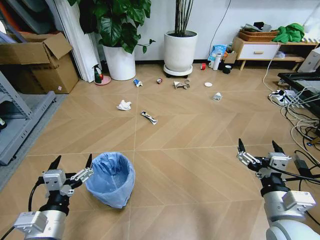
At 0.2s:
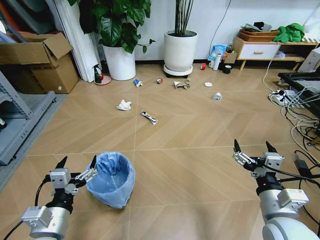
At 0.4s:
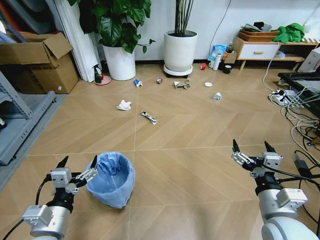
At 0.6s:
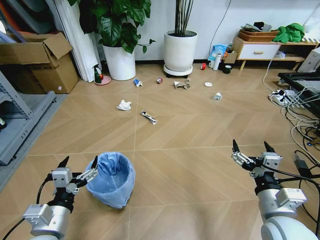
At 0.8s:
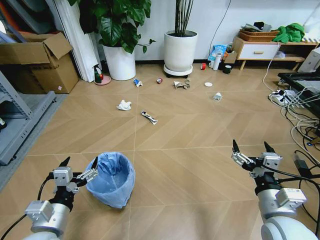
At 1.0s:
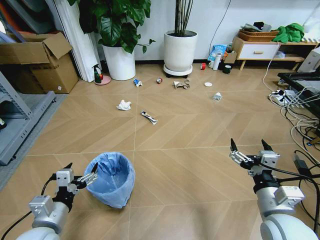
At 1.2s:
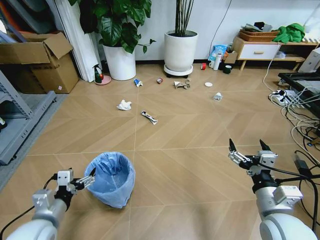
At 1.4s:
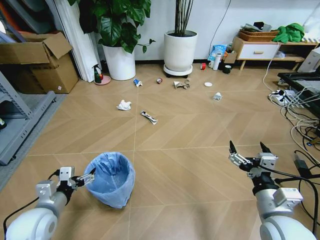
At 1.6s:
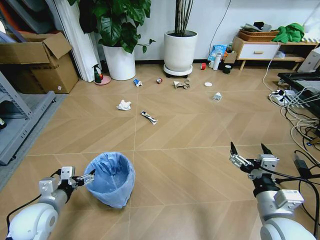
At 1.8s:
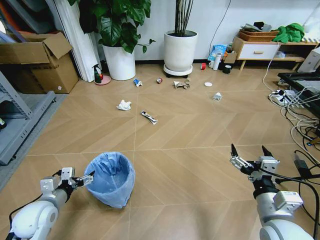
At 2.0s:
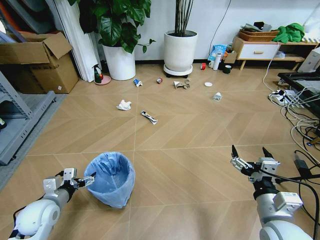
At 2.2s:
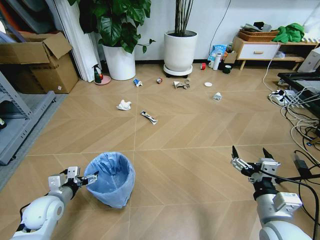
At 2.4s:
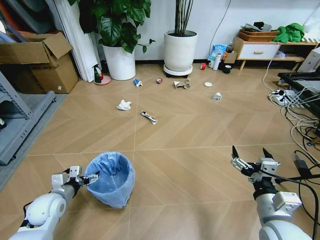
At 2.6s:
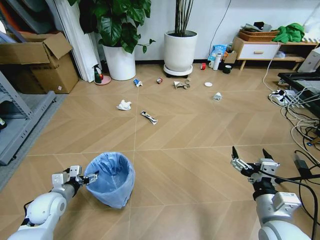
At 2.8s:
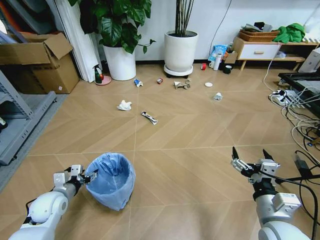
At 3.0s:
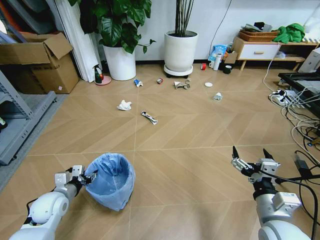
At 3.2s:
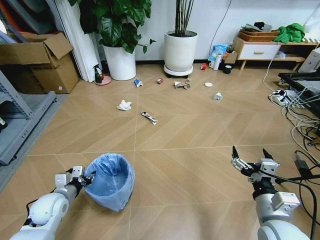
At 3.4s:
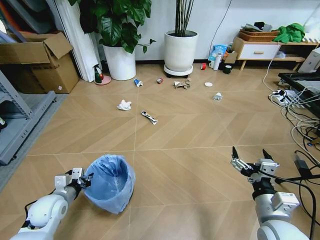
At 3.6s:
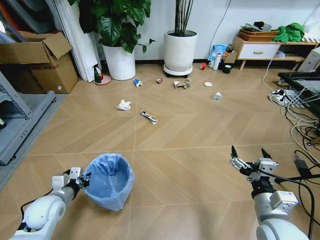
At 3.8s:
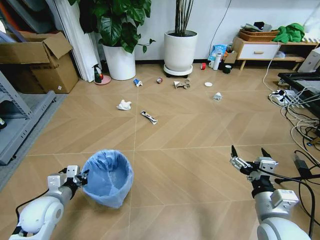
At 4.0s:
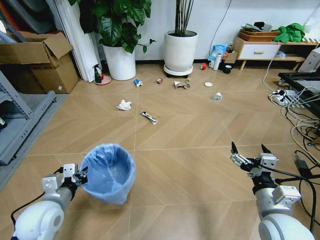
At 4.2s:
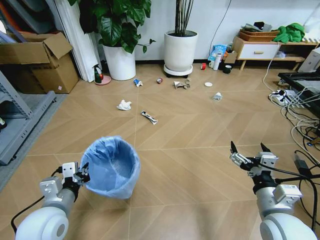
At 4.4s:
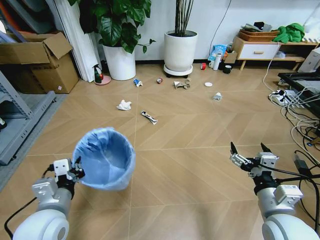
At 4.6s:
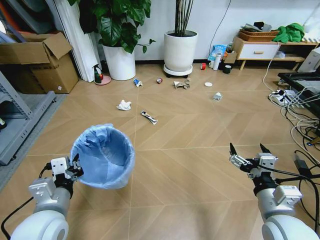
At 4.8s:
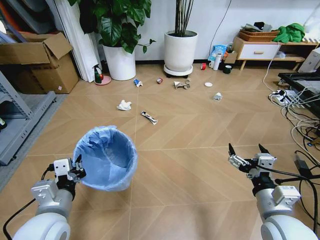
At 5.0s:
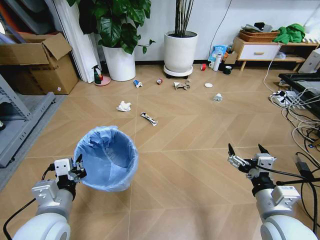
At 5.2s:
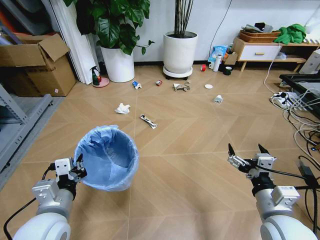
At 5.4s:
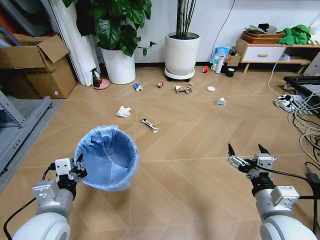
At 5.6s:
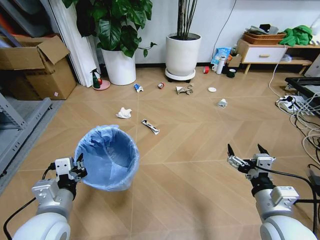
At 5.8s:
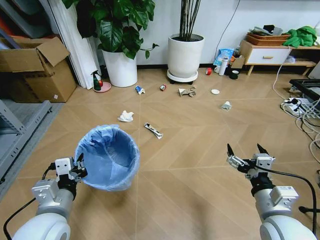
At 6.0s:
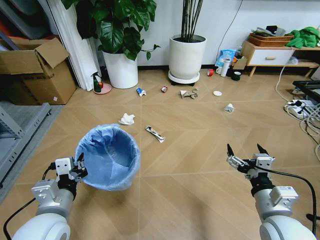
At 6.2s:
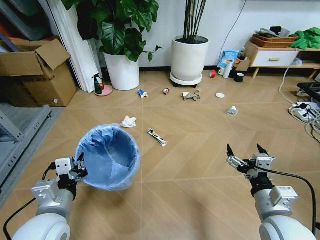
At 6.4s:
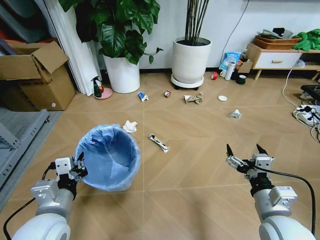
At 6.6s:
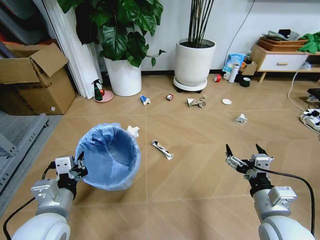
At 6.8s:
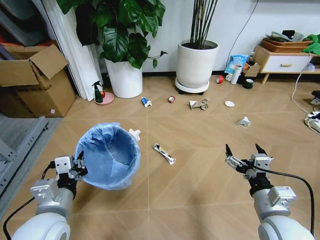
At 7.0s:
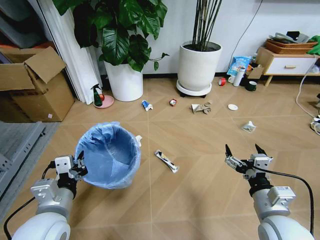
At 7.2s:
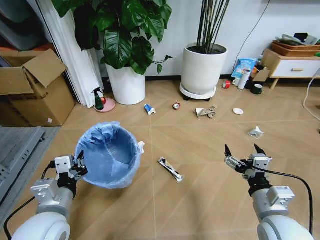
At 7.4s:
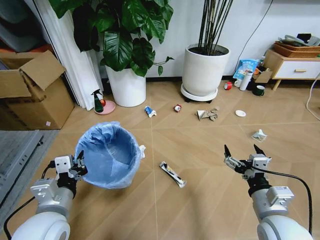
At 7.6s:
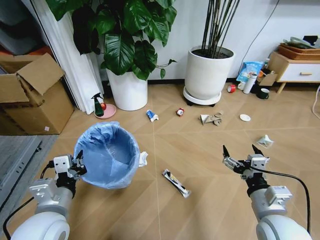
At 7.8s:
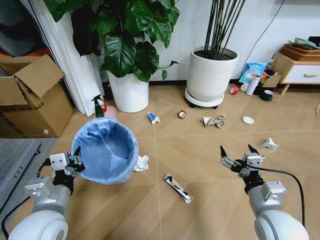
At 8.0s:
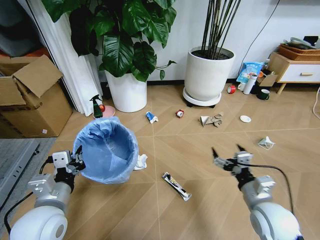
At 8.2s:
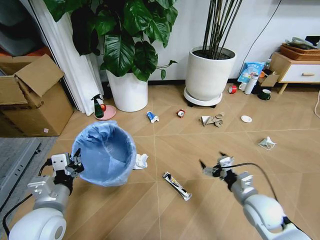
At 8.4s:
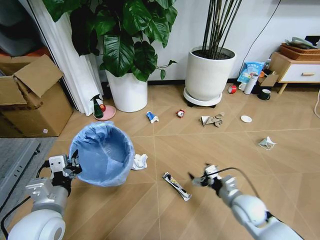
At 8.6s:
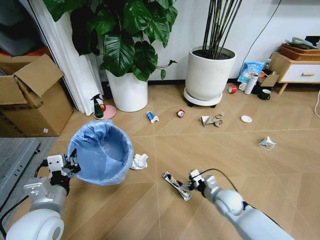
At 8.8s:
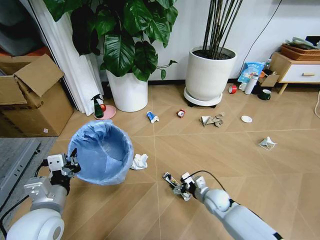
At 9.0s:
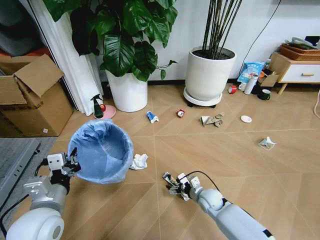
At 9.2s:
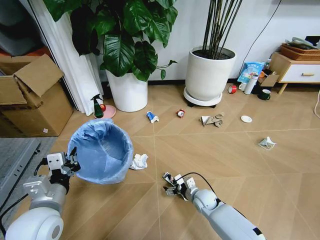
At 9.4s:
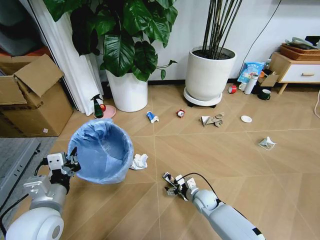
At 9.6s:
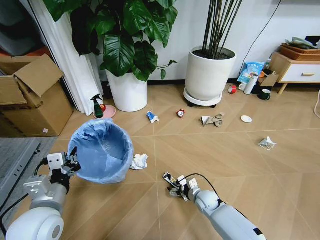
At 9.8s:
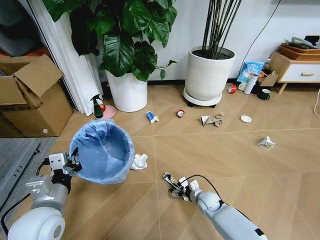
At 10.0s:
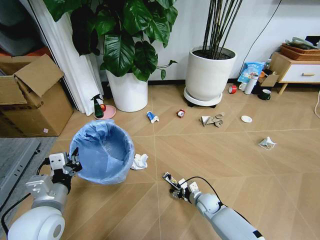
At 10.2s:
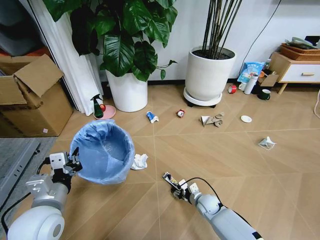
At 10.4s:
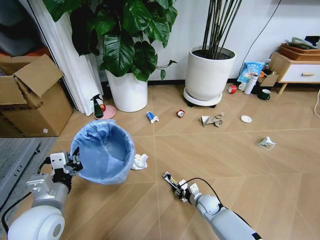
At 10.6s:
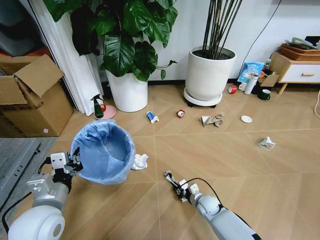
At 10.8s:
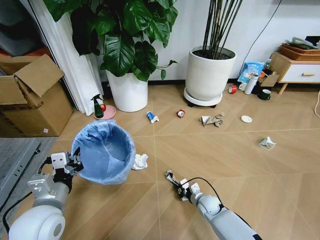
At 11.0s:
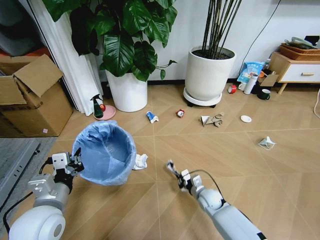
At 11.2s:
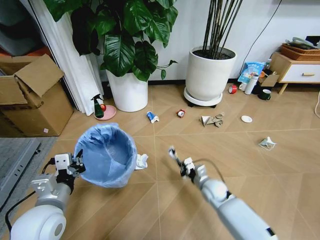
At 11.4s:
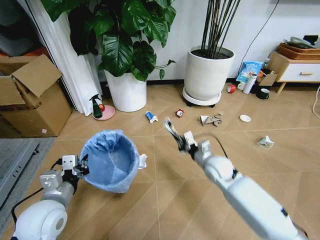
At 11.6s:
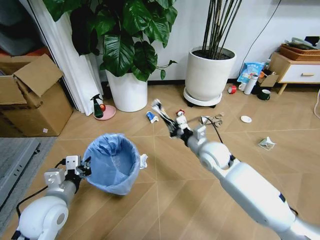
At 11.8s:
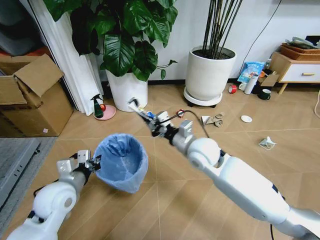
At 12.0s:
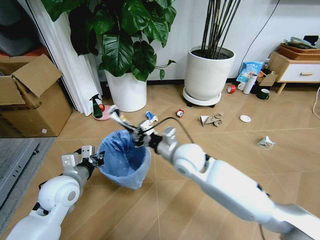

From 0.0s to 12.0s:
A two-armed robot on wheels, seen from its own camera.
Task of the whole recording: Pick up the trash bin and place the garbage on the floor into it.
From 1.6s to 3.0s: The left gripper heads downward and forward, covering approximately 10 cm, and closes up.
From 3.0s to 4.4s: The left gripper is displaced upward, backward and to the right by approximately 20 cm, and closes.
From 7.6s to 9.0s: The right gripper is displaced downward and forward by some 30 cm.
From 9.0s to 10.4s: The right gripper changes place by approximately 5 cm, and closes its fingers.
From 10.4s to 12.0s: The right gripper travels upward and to the left by about 35 cm. The left gripper travels forward by about 10 cm.

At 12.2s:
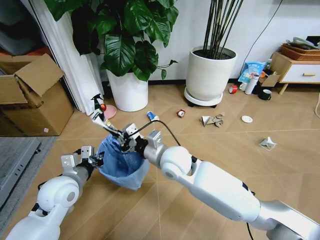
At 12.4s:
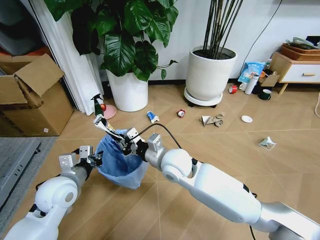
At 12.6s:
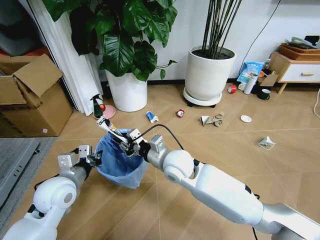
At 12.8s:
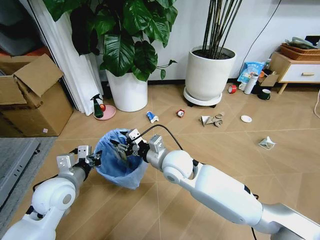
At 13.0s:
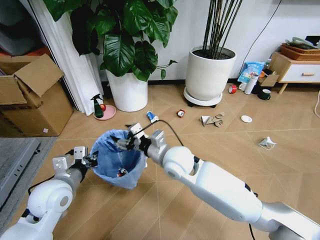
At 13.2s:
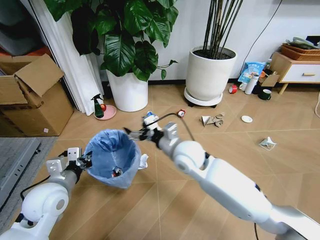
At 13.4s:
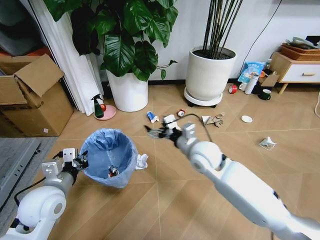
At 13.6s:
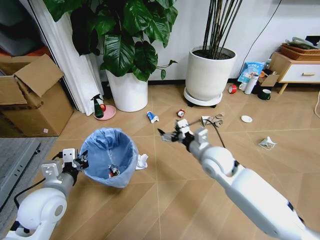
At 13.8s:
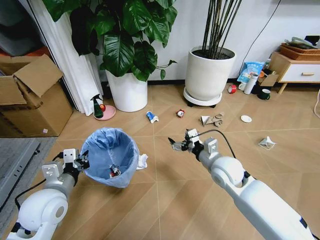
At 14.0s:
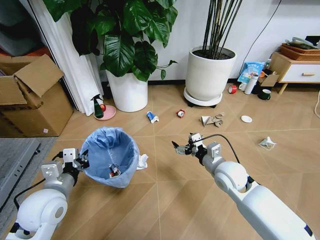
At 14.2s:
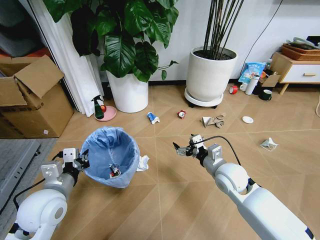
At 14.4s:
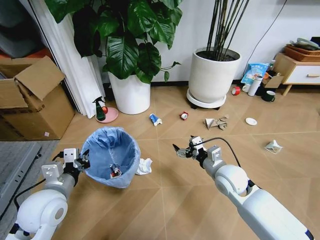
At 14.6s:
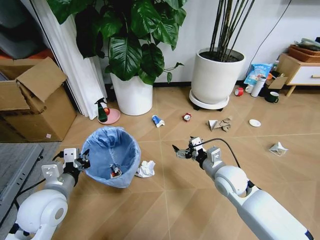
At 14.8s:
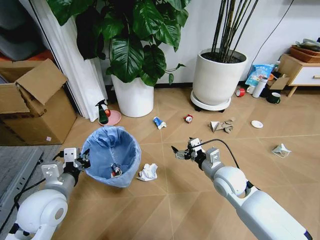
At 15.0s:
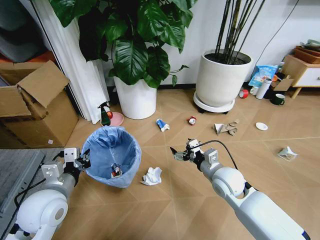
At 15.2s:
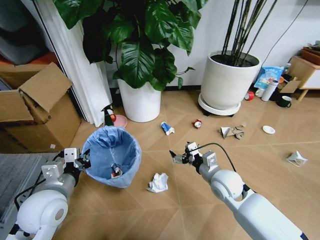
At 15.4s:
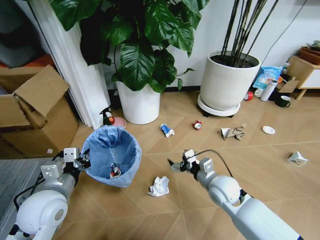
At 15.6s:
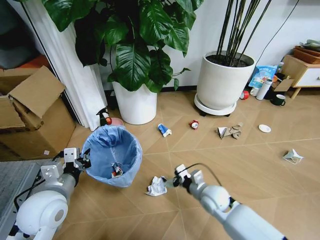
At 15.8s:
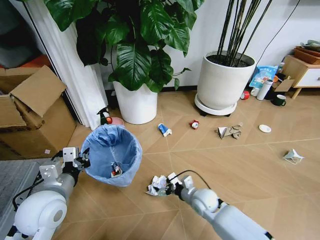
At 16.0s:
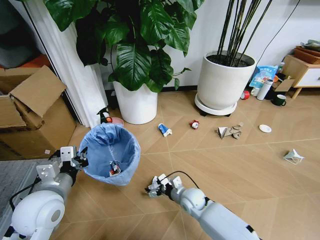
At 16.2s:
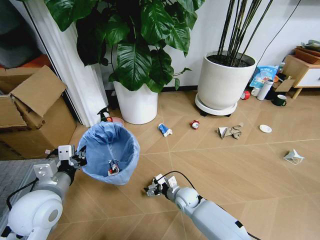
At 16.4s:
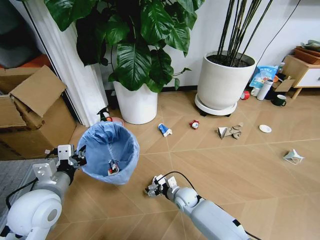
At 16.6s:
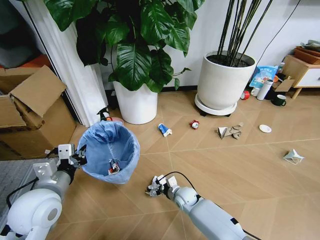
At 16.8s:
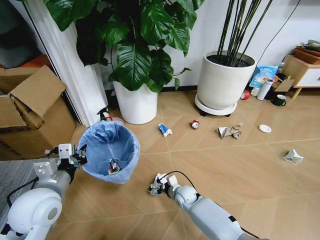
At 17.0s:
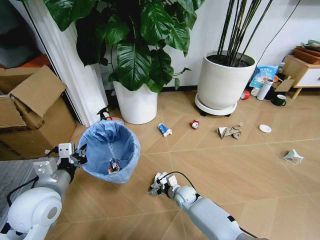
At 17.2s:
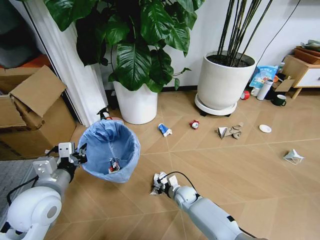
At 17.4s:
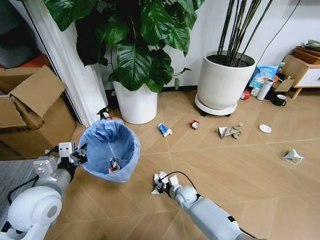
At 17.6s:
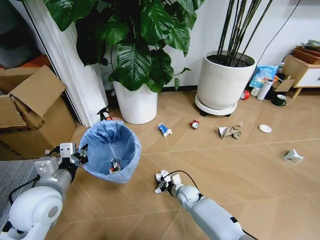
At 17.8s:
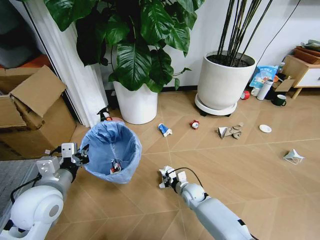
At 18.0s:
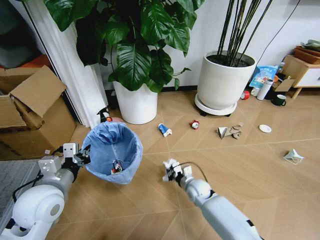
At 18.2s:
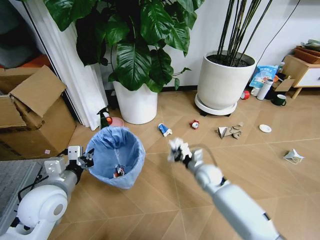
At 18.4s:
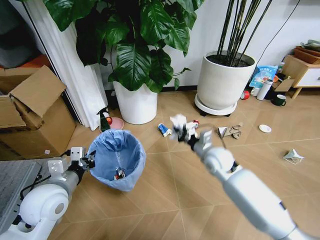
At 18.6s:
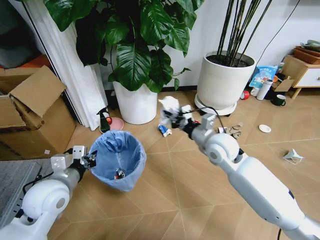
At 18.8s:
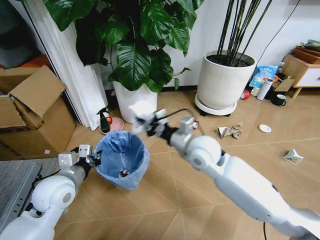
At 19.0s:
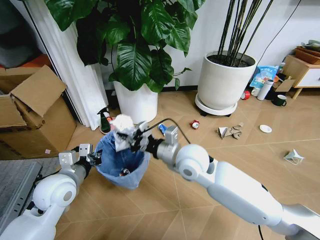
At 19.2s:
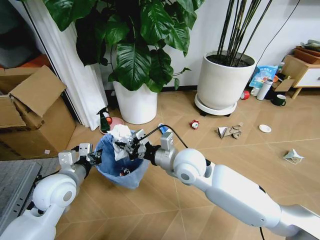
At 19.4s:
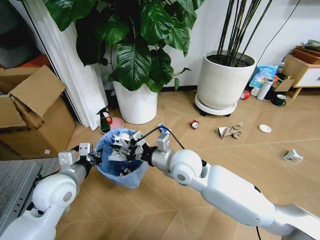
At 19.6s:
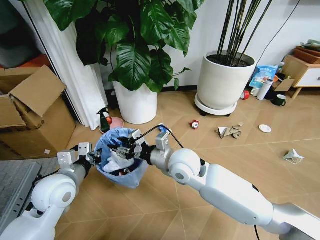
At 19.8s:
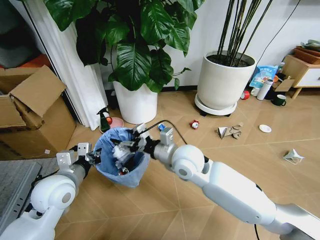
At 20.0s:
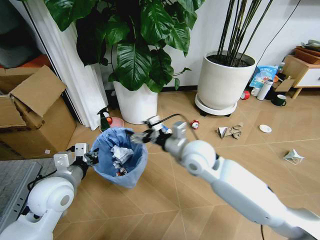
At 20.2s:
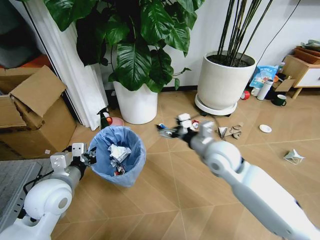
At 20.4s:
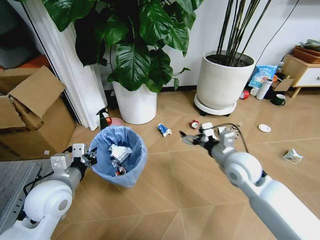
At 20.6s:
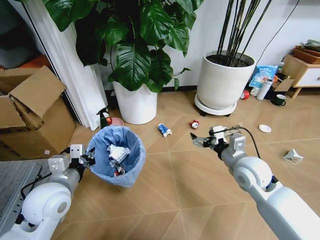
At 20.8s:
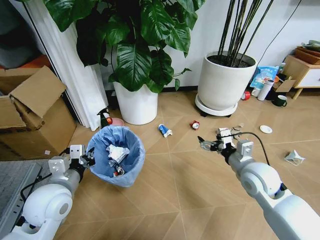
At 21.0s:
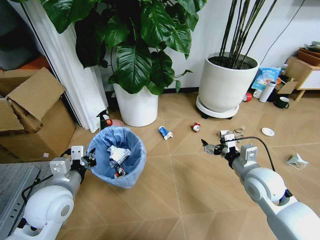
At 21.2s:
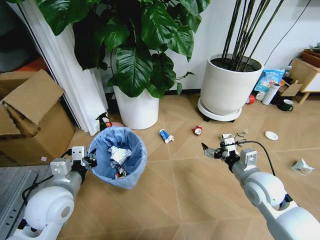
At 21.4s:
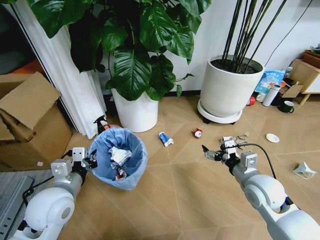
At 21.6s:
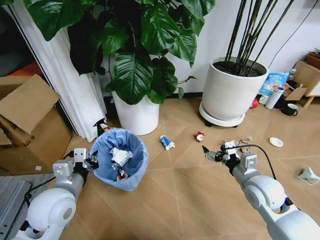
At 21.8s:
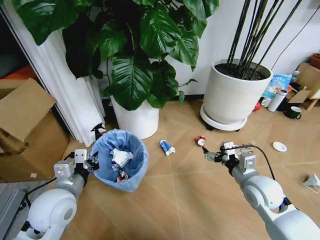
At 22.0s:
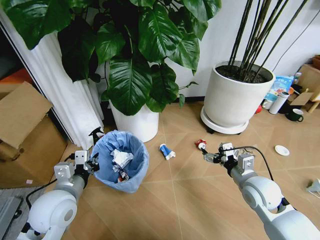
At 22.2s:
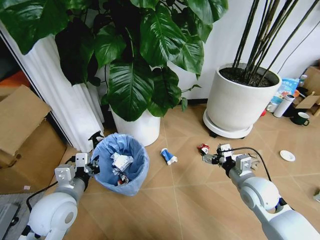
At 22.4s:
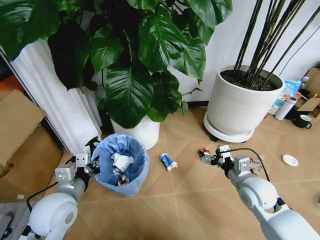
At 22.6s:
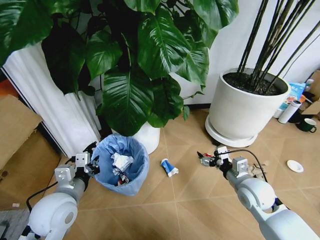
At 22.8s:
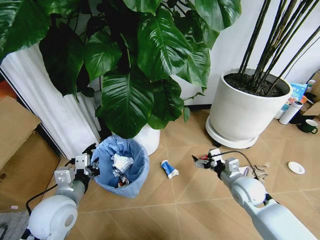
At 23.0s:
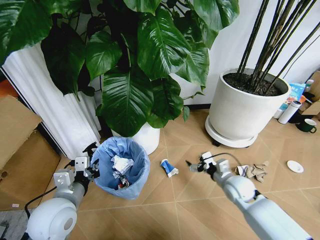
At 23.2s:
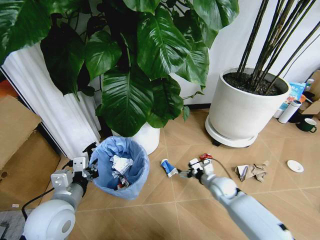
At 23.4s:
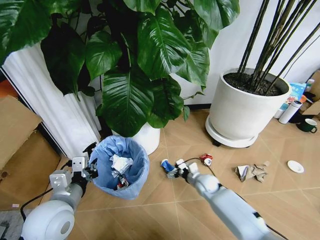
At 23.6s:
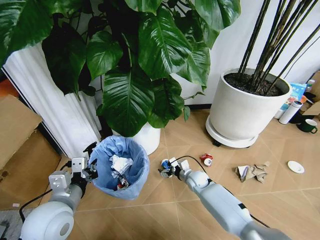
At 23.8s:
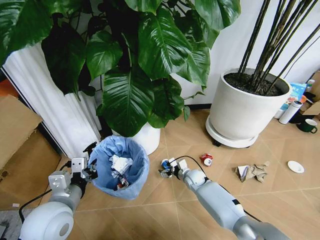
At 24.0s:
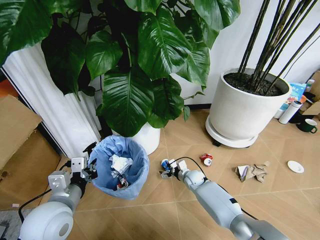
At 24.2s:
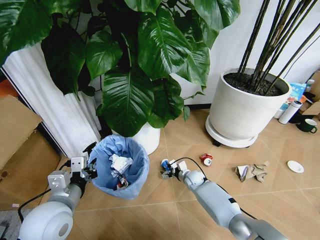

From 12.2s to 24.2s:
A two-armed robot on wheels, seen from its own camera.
Task of the whole recording: Pick up the trash bin and place the garbage on the floor into it.
From 12.2s to 13.8s: The right gripper heads to the right, covering roughly 15 cm, and opens up.
From 15.2s to 16.6s: The right gripper moves downward and to the left, about 20 cm.
From 16.6s to 18.2s: The right gripper heads upward and to the right, covering some 15 cm, and closes up.
From 18.2s to 19.8s: The right gripper travels upward and to the left by approximately 20 cm, and opens up.
From 19.8s to 21.2s: The right gripper moves to the right, roughly 20 cm.
From 22.6s to 24.2s: The right gripper is displaced downward, forward and to the left by approximately 30 cm.
